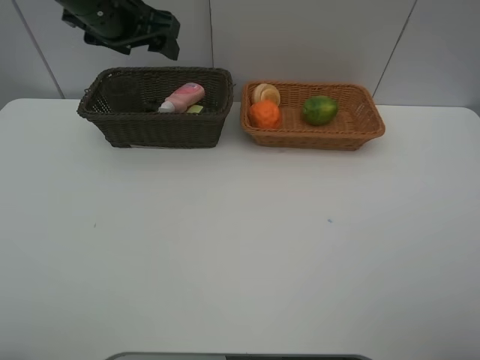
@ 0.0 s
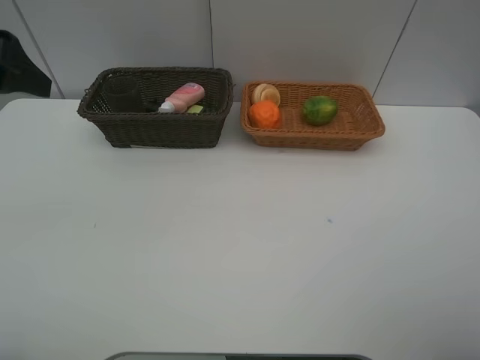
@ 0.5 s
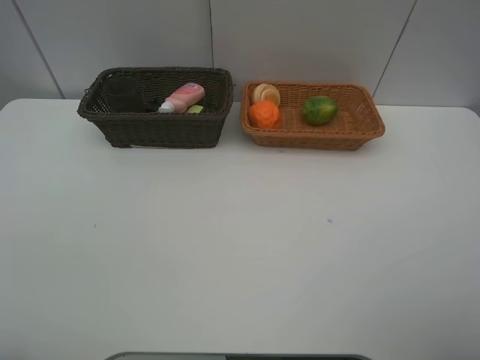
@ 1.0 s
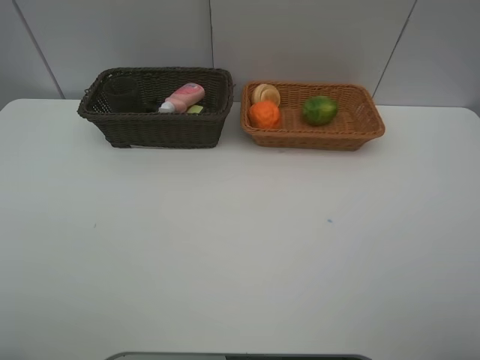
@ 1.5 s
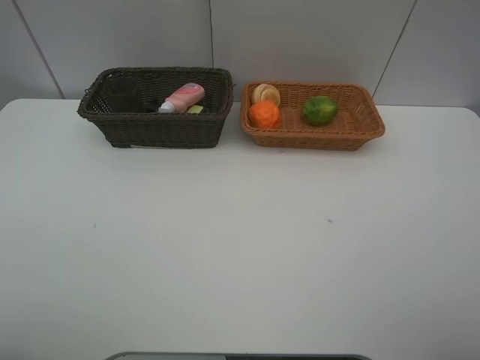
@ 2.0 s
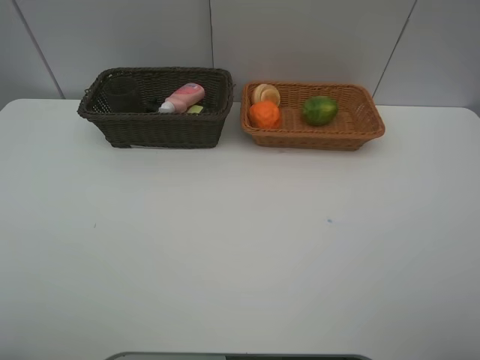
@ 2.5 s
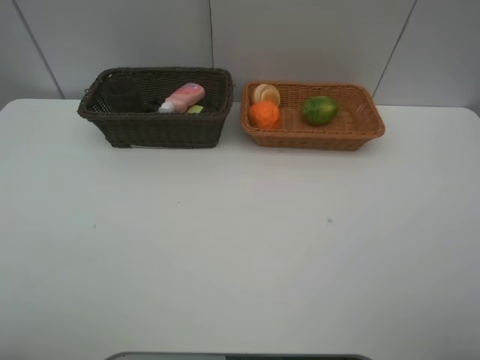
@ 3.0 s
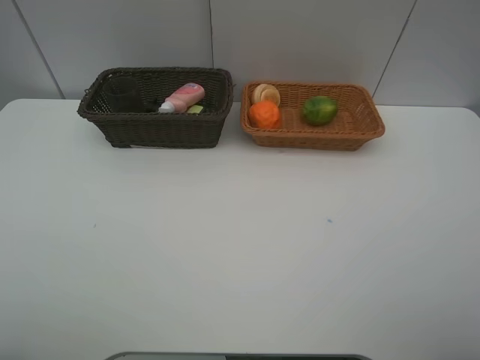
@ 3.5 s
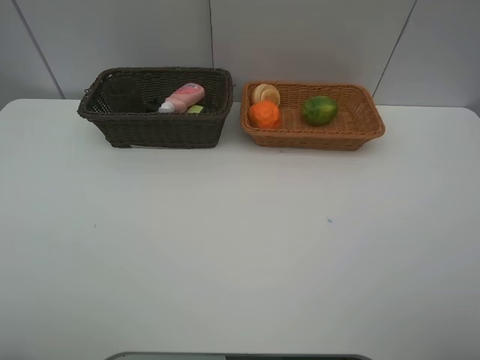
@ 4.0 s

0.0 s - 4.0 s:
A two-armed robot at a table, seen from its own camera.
Task of the whole recording: place multiple objects separately in different baskets.
0.0 s - 2.0 s: The left gripper shifts about 35 cm backward.

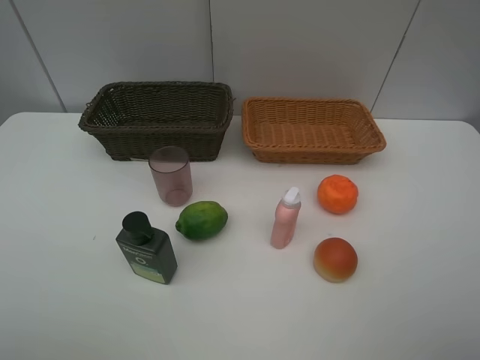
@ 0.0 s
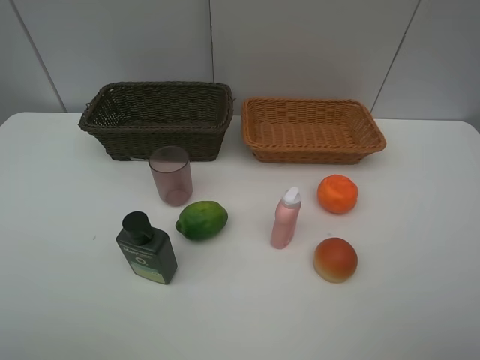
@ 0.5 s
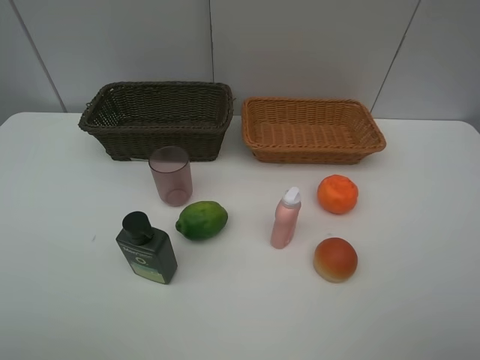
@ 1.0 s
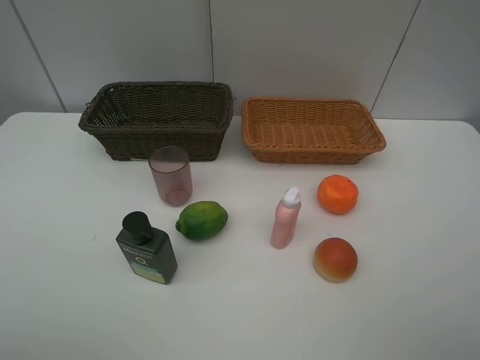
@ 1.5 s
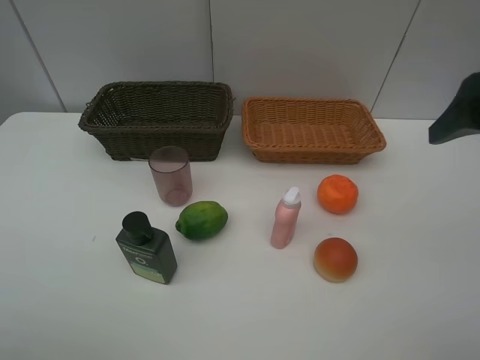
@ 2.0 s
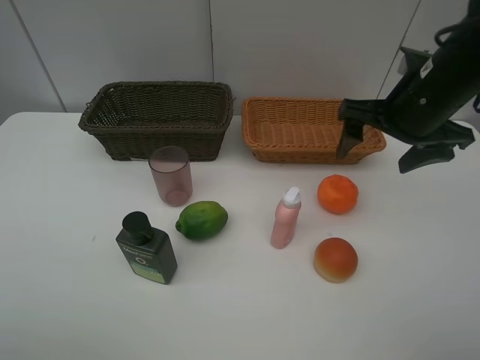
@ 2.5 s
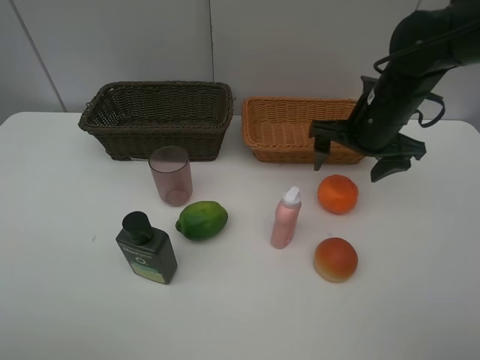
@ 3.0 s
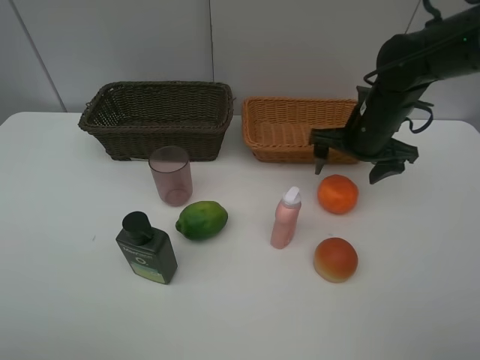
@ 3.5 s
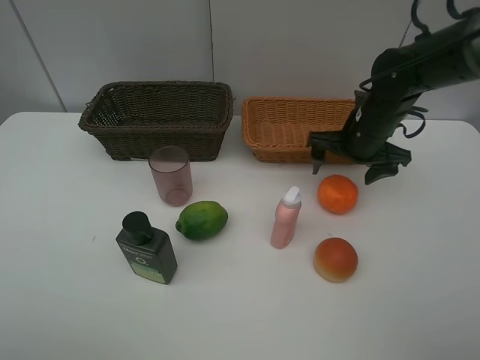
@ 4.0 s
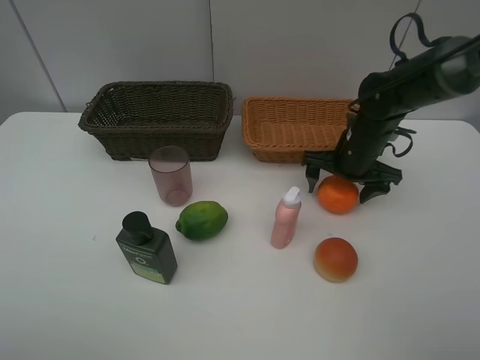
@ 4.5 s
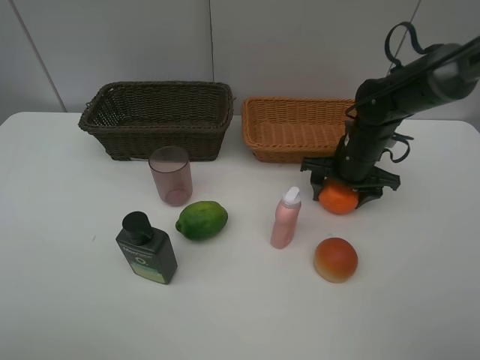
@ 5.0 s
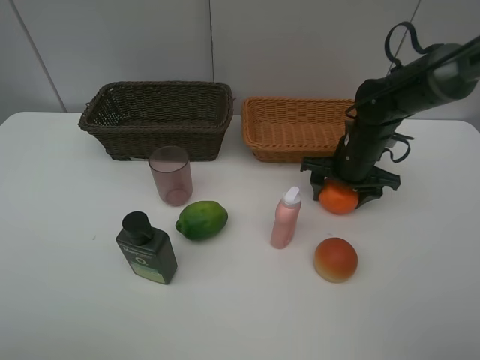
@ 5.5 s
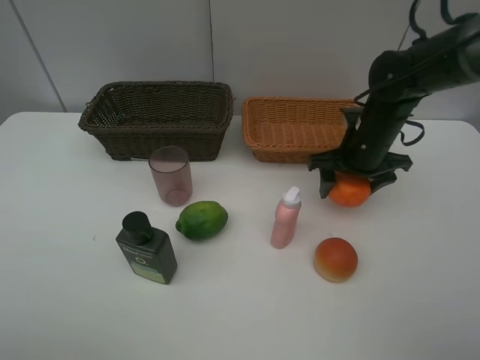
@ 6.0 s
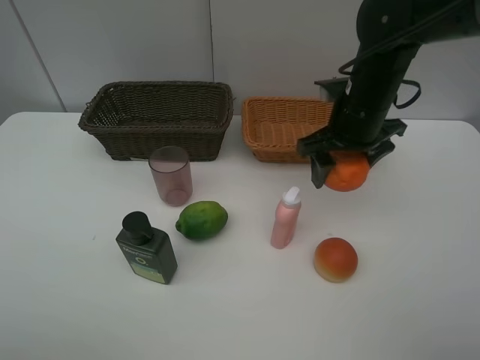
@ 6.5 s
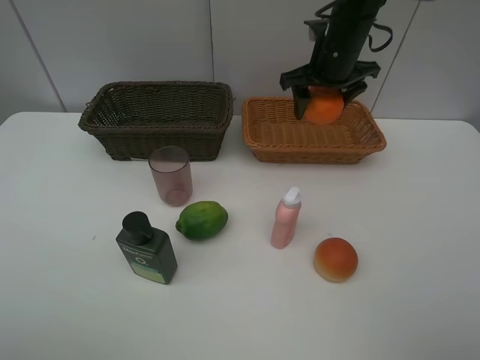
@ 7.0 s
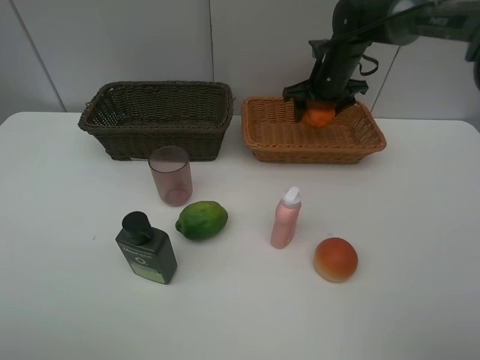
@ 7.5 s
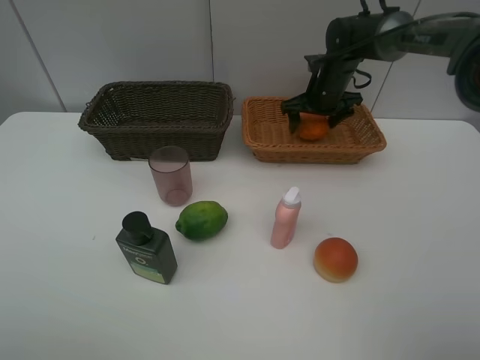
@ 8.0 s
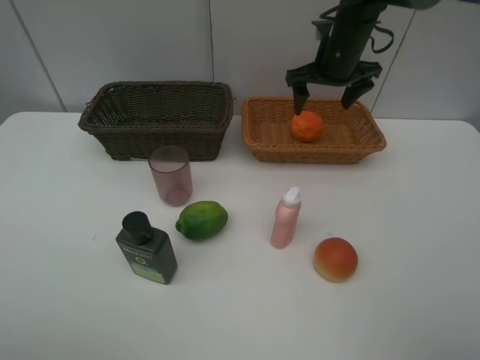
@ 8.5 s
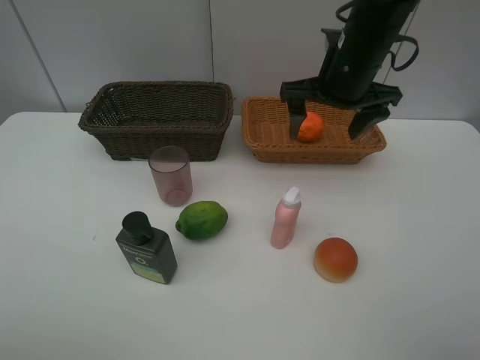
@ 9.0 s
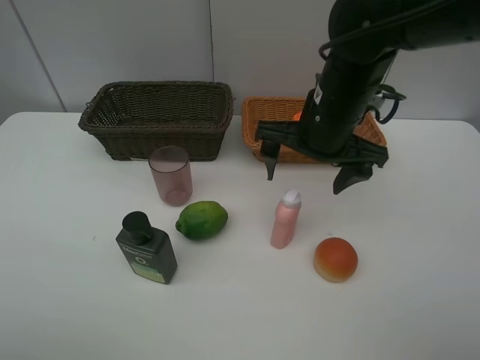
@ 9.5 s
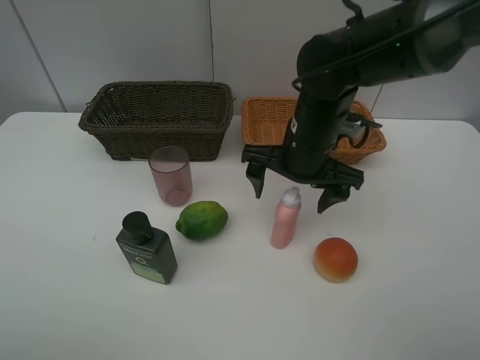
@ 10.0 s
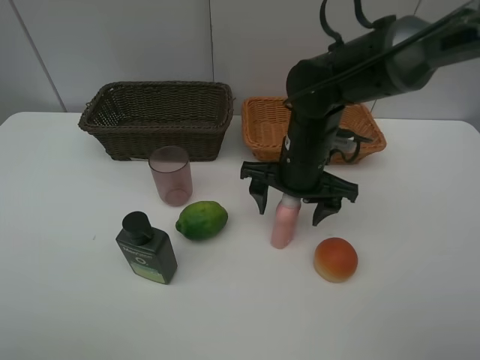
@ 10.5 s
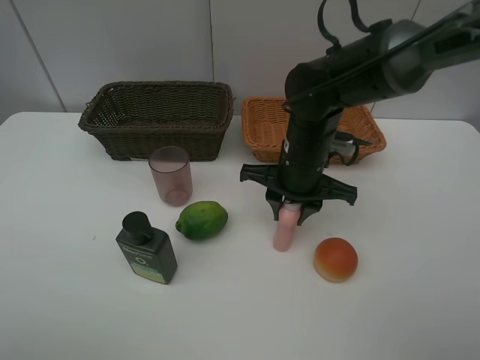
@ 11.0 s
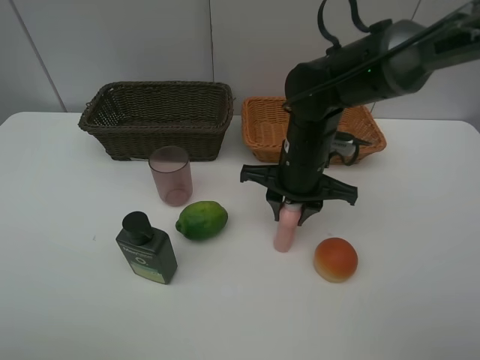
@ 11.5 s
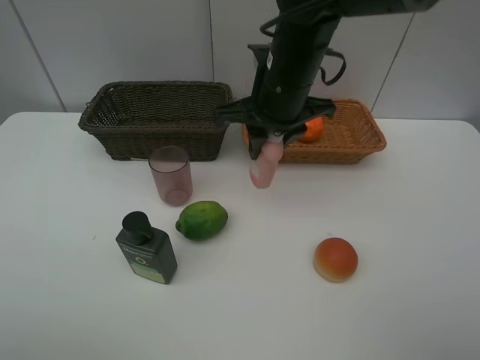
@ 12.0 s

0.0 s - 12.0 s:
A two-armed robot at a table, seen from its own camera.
Task of the whole recording: place multiple objects separately in different baskets.
Step, 0.0 s - 5.5 s: Pick up the orange with right gripper.
Step, 6.0 s - 8.0 s: Place the orange in the light basket with right gripper.
0.0 s - 2.0 s: The right gripper moves forward, some 20 cm.
2.0 s - 4.0 s: The right gripper heads forward, downward and to the left, covering approximately 25 cm.
4.0 s - 6.0 s: The grippers move only a little.
6.0 s - 8.0 s: The right gripper heads forward, covering about 15 cm.
8.0 s - 10.0 s: The right gripper moves backward, roughly 20 cm.
10.0 s - 12.0 s: The right gripper is displaced upward by approximately 10 cm, and closes.

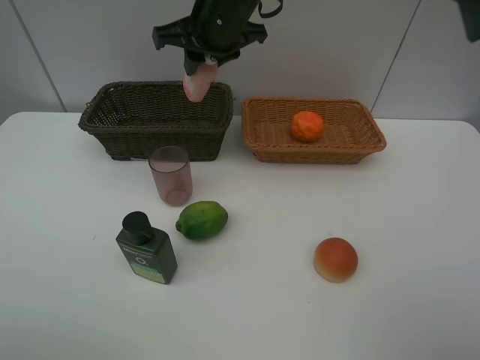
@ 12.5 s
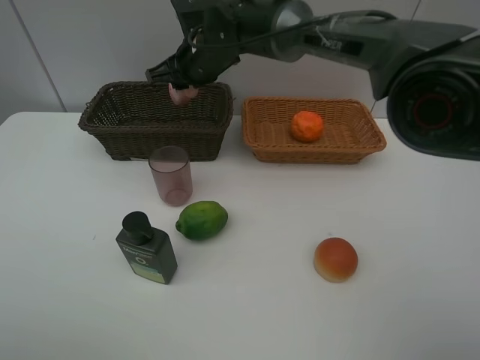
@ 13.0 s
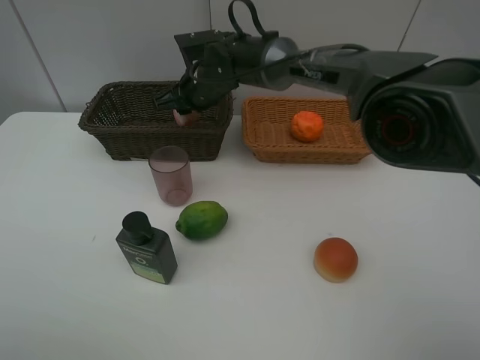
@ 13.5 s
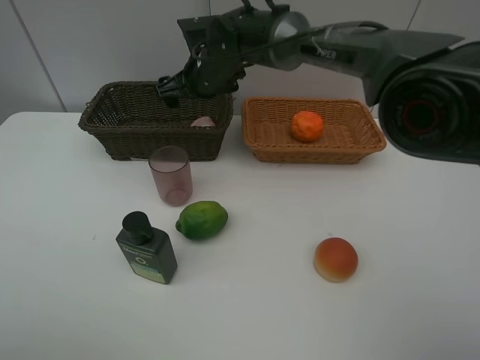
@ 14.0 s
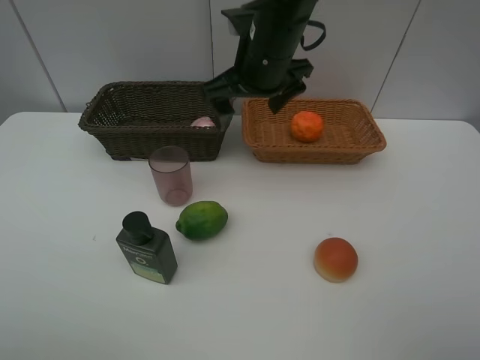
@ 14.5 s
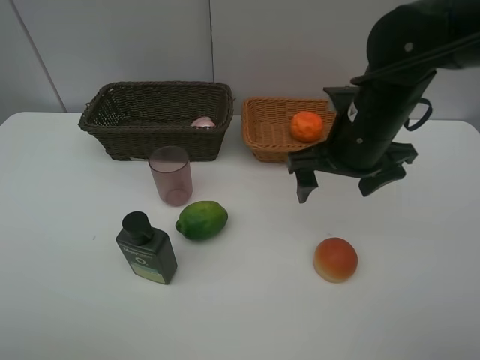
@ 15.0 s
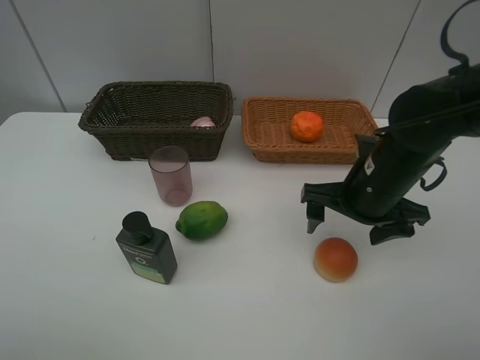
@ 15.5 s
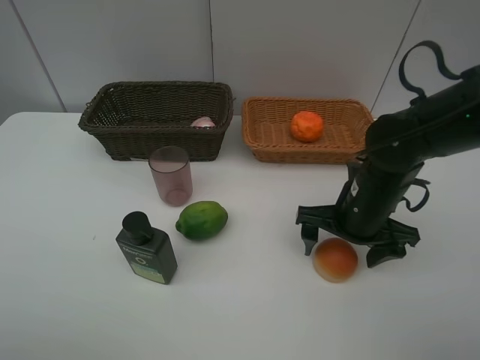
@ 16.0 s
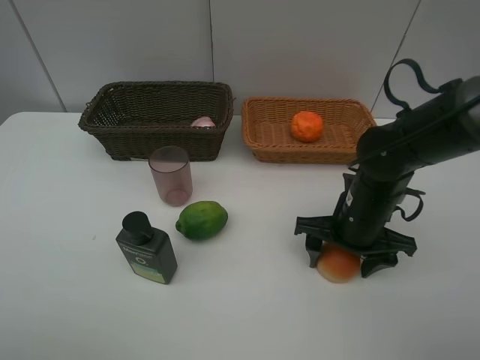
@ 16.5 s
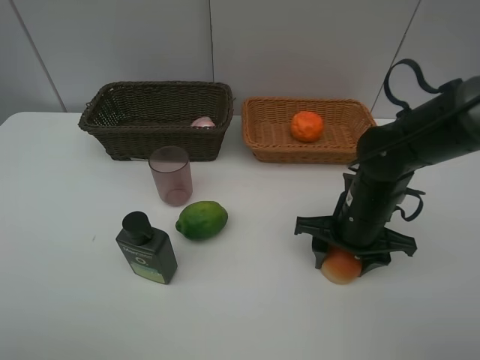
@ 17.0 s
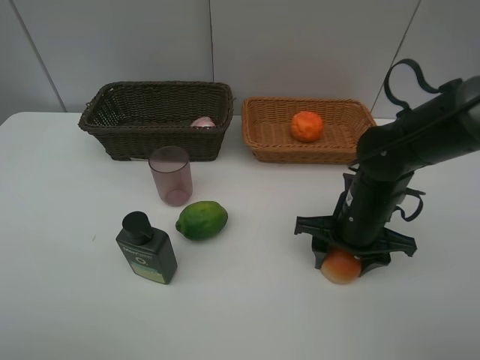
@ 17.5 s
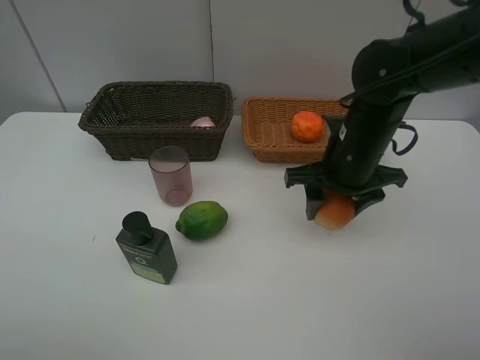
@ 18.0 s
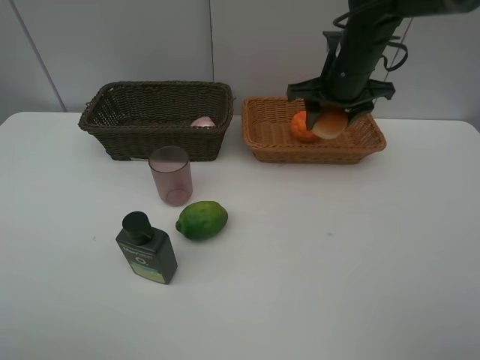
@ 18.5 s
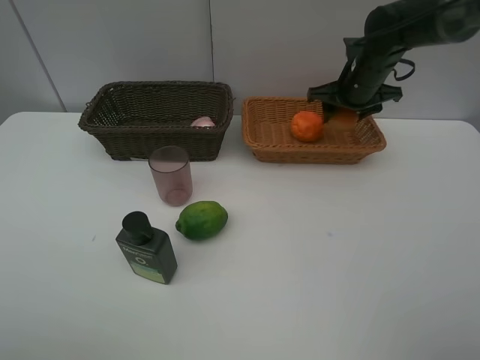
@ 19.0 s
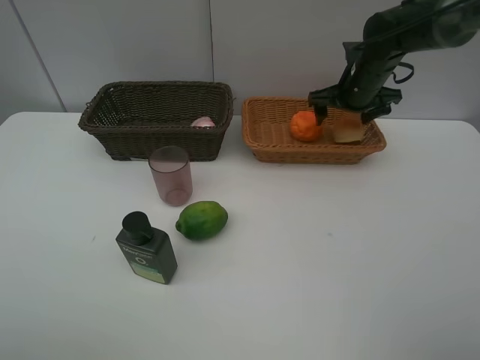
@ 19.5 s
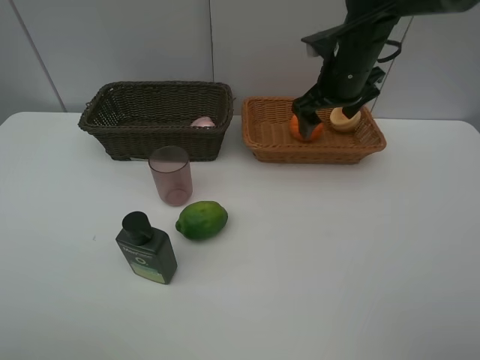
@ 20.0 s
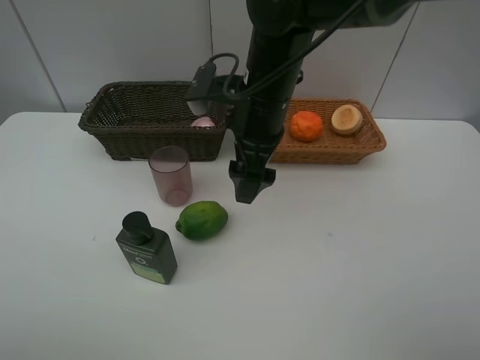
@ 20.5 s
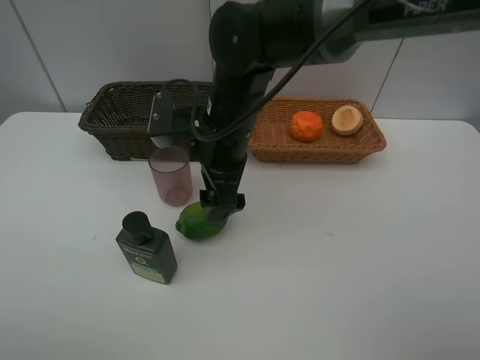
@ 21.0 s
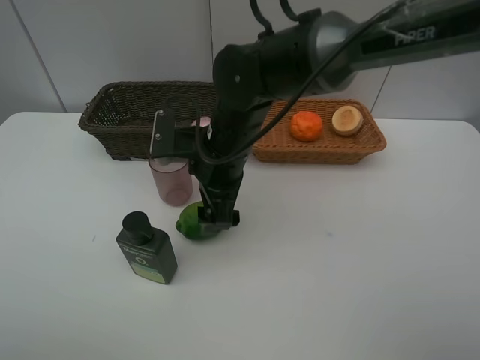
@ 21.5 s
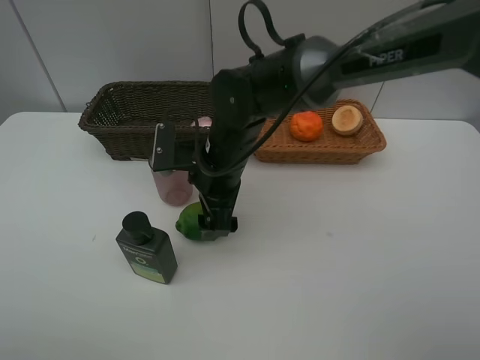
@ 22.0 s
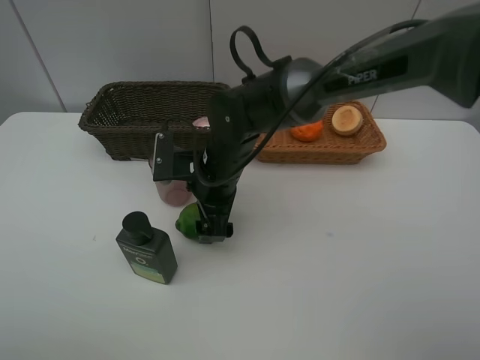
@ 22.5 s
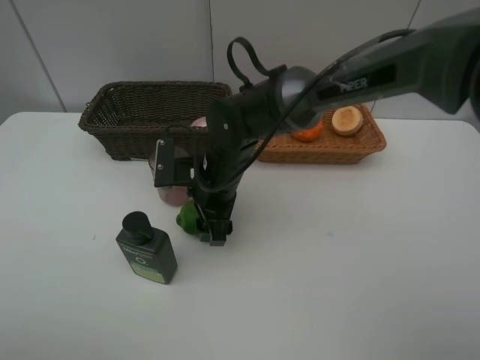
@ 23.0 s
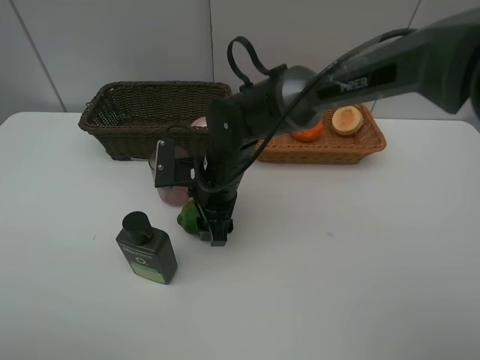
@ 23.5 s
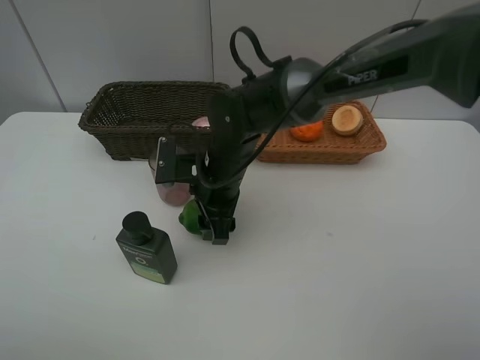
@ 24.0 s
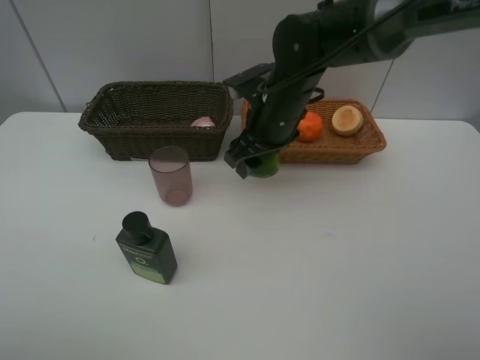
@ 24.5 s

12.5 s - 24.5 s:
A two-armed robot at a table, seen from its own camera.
Task of the whole recording: place multiple objects separately in different baskets.
Step, 14.5 s - 17.5 s: Pick up the bread with right gripper.
Step, 18.0 s - 19.5 s: Place the bread in the light basket with right gripper.
Step, 20.0 s - 24.0 s: Pick up the lime with right gripper.
12.5 s - 14.5 s: The right gripper moves to the right and backward, about 10 cm, reaches approximately 10 cm downward, then returns, and opens up.
14.5 s - 16.5 s: The right gripper moves downward, to the right and backward, some 20 cm, and closes up.
16.5 s - 18.5 s: The right gripper shifts approximately 20 cm forward and upward.
18.5 s - 20.5 s: The right gripper moves to the left and backward, approximately 15 cm, and opens up.
20.5 s - 22.5 s: The right gripper goes about 10 cm downward and to the left.
22.5 s - 24.5 s: The right gripper shifts approximately 10 cm to the right and upward, and closes up.
